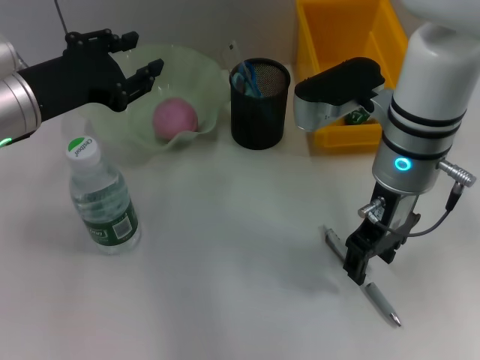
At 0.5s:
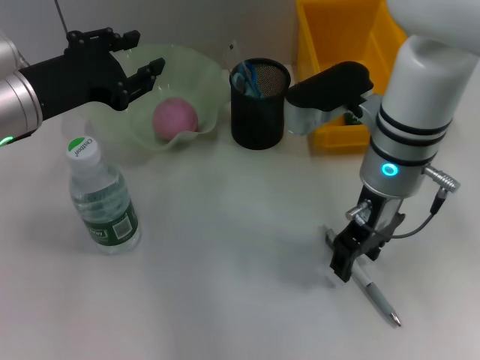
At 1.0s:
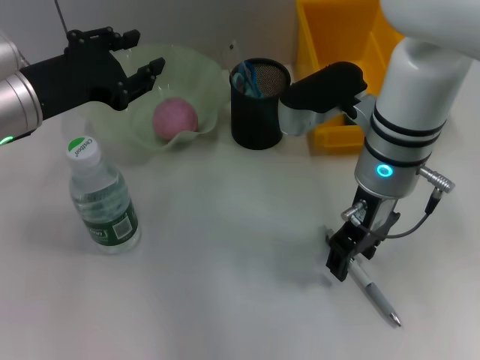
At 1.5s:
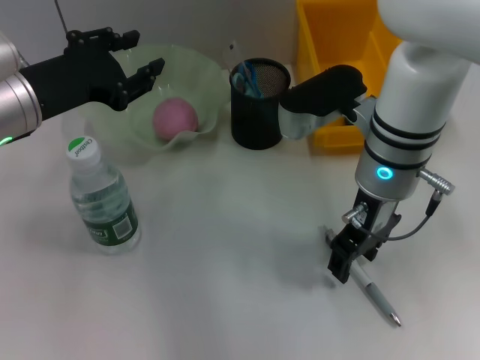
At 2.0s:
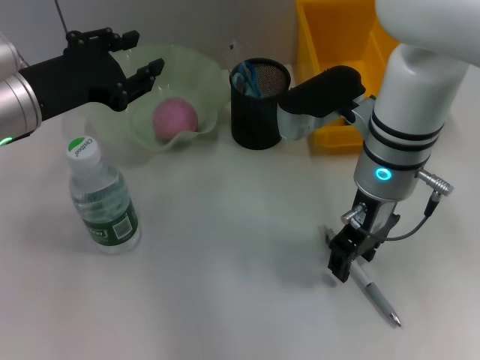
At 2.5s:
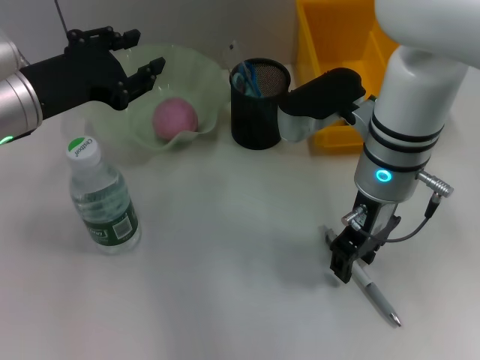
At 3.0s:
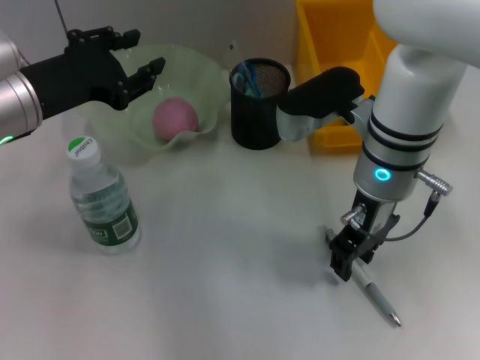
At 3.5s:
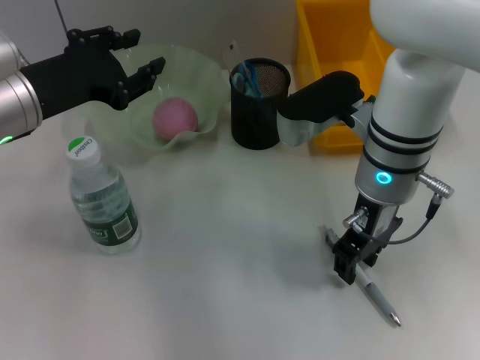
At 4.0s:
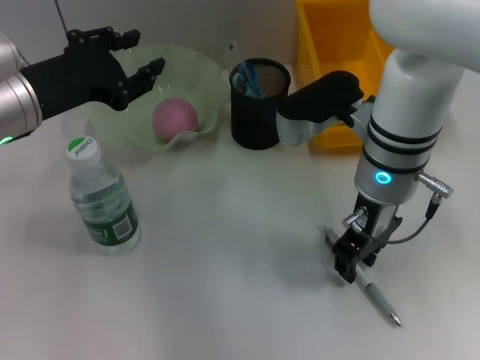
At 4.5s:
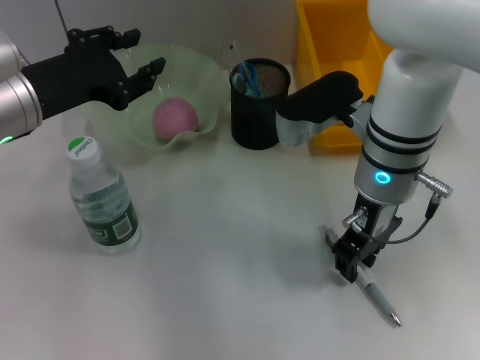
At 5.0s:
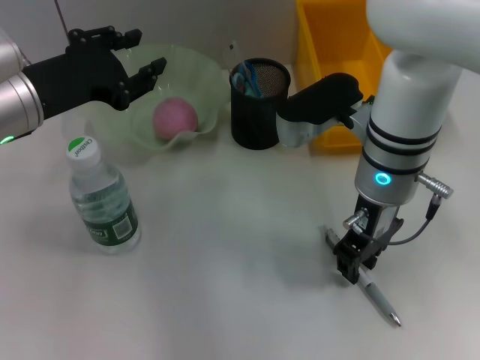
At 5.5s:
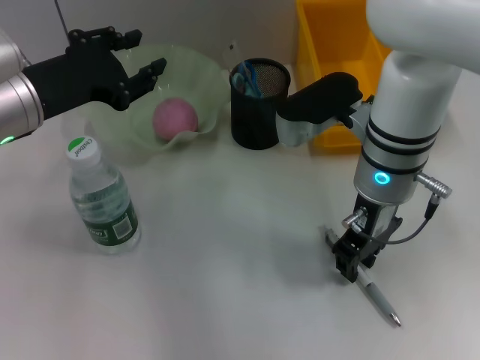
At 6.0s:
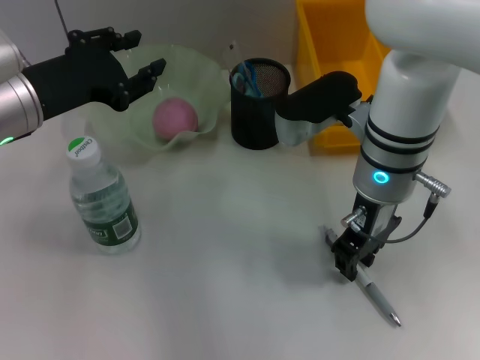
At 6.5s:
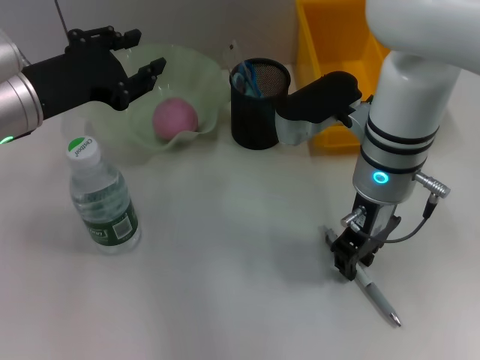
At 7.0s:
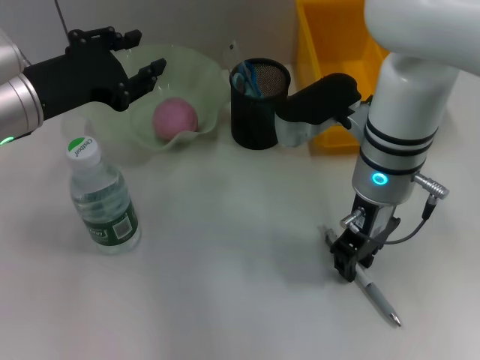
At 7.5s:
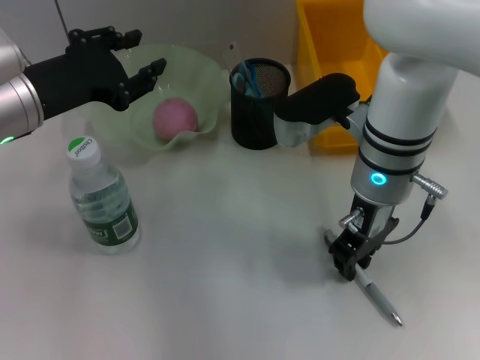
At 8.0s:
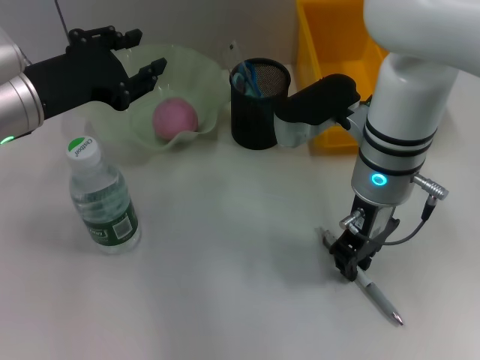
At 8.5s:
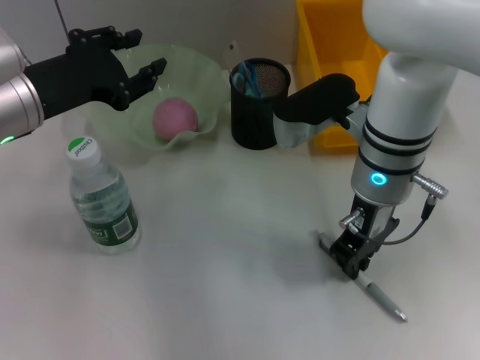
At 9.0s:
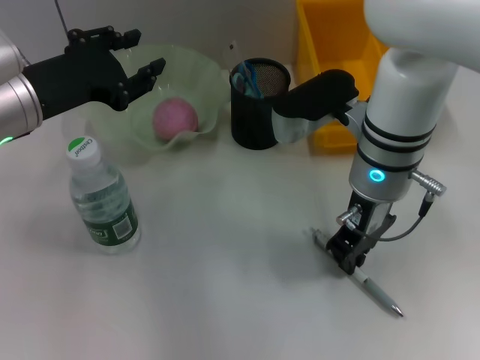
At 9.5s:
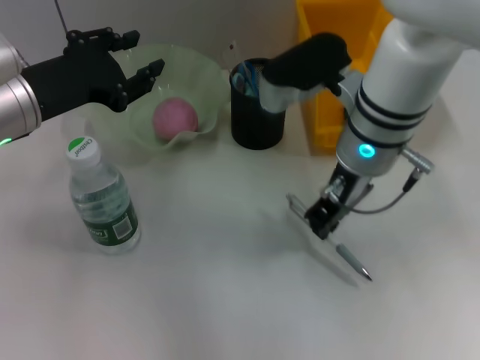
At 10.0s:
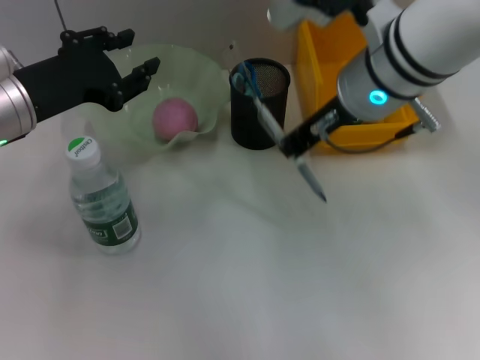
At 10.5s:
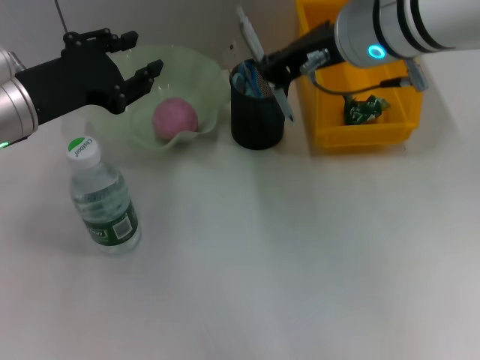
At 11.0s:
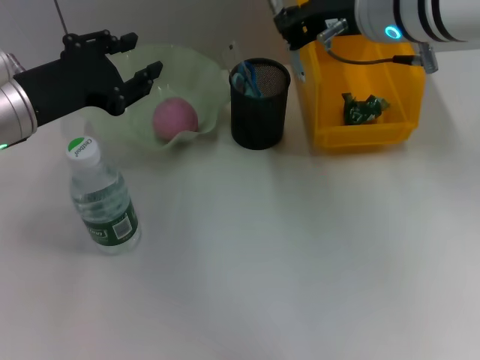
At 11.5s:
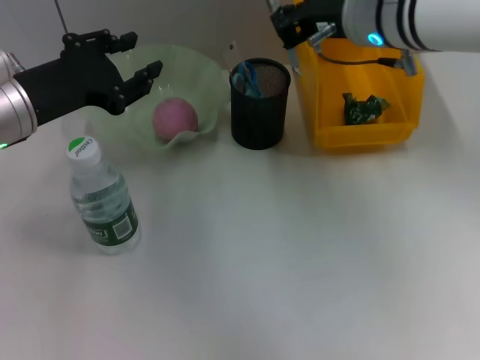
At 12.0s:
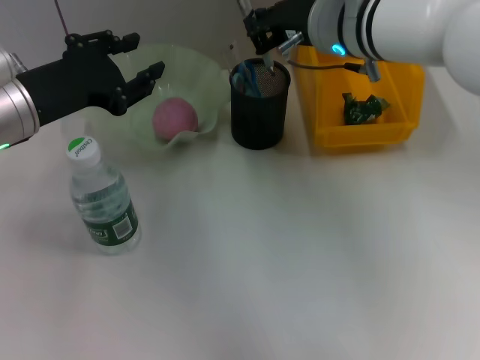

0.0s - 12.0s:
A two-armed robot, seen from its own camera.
Step, 0.0s - 8.5s: Grab the gray spring-action pen with the right hand.
0.0s - 2.0s: The grippers move only a little.
2.0s - 8.0s: Neither gripper changes place.
8.0s - 10.0s: The right gripper travels upward by approximately 10 cm.
10.0s - 12.0s: The right gripper shifts approximately 5 cm forward.

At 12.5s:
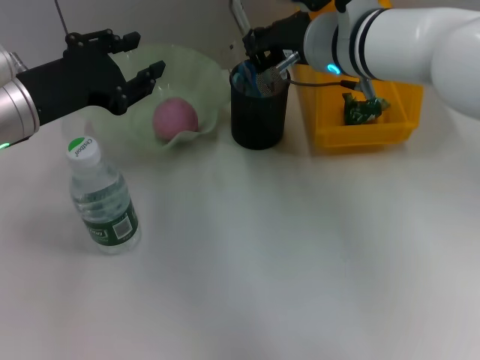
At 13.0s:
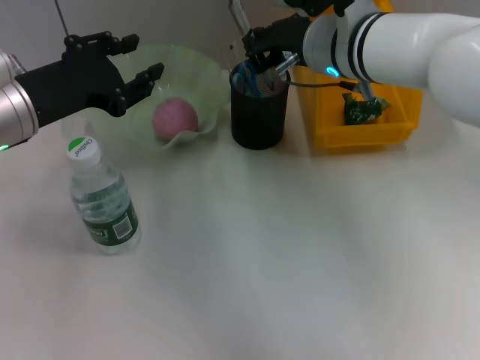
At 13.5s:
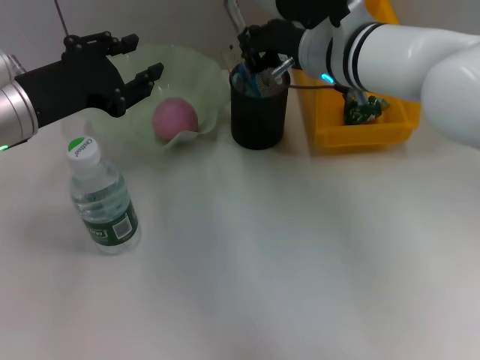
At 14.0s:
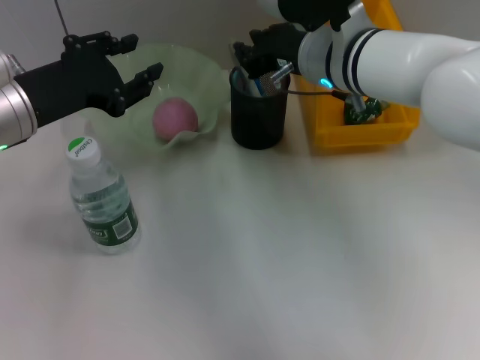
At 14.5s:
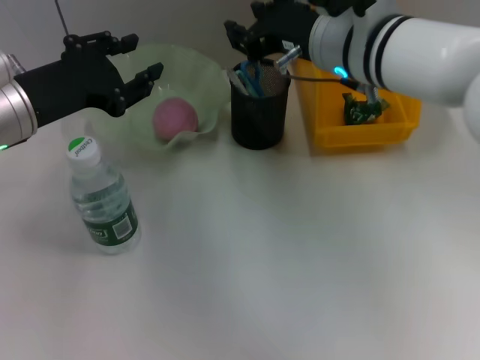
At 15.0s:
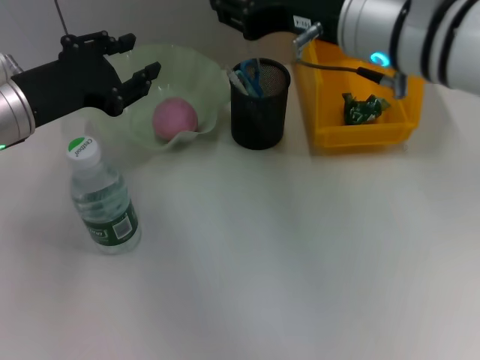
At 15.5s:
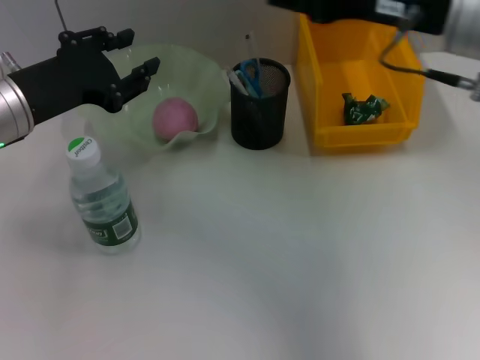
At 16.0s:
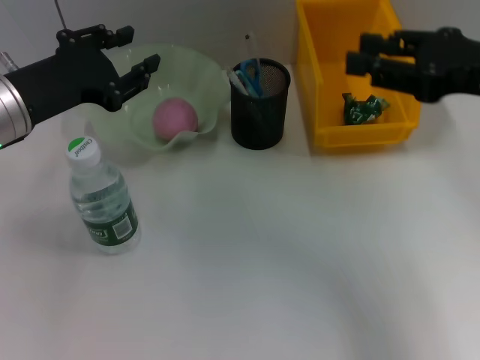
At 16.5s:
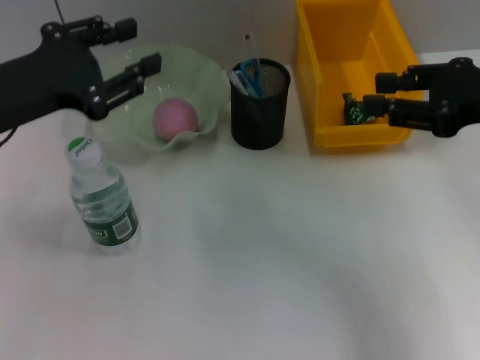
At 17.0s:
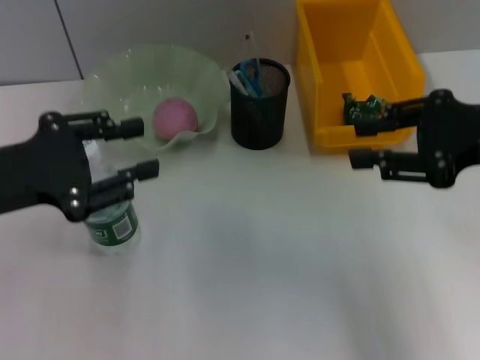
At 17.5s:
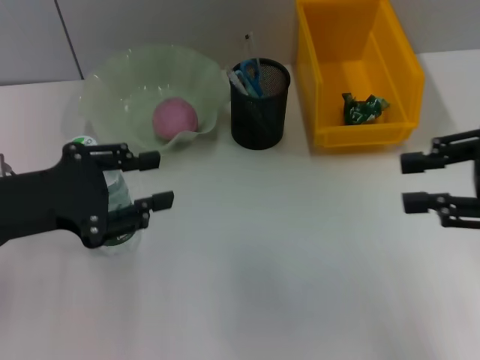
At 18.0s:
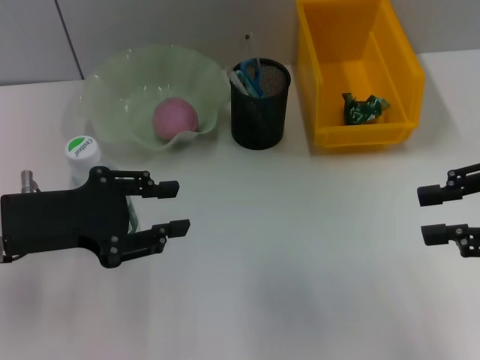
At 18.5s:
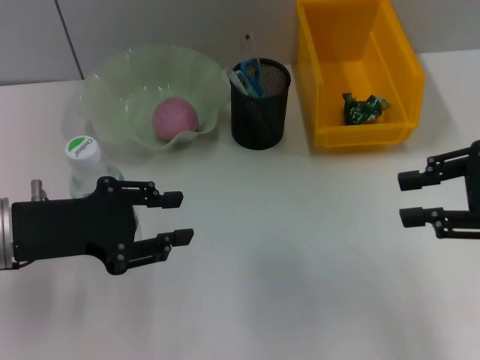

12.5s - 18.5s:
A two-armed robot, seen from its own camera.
12.5s - 14.5s: The right gripper opens.
14.5s - 16.5s: The right gripper is displaced to the right and backward by approximately 20 cm.
16.5s - 18.5s: The left gripper is displaced downward by roughly 5 cm. The right gripper moves about 5 cm.
